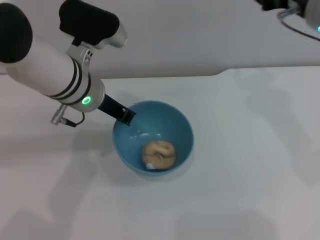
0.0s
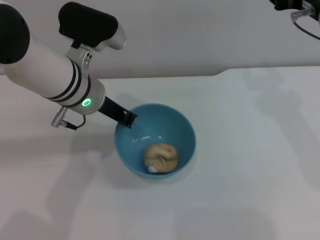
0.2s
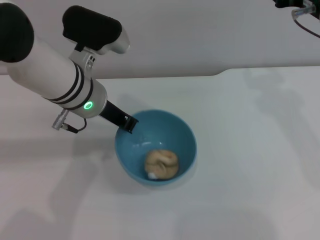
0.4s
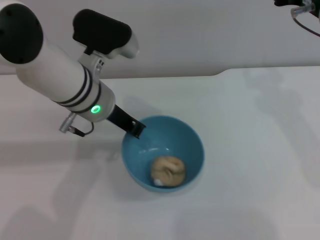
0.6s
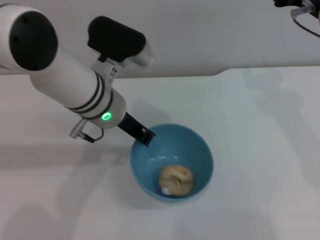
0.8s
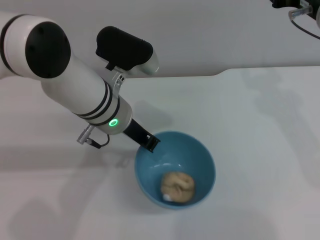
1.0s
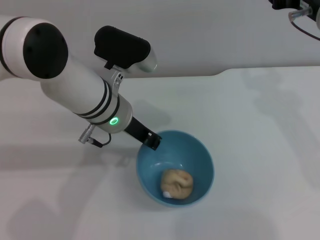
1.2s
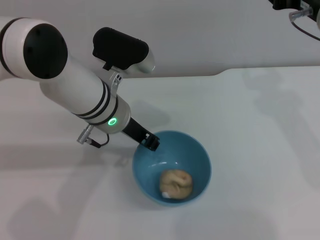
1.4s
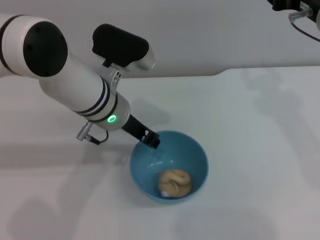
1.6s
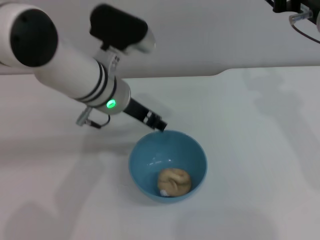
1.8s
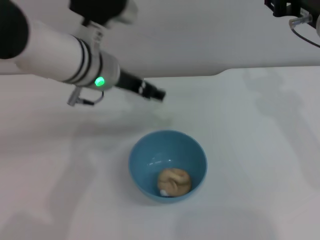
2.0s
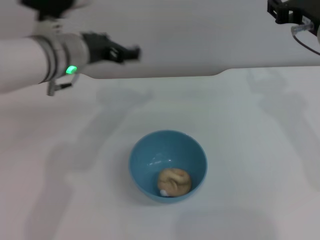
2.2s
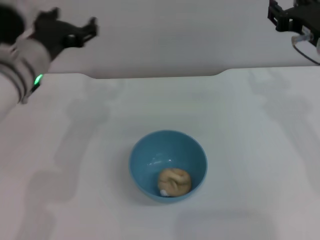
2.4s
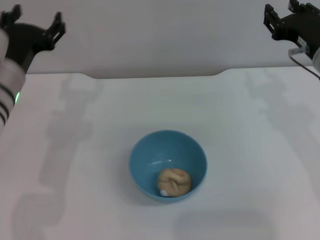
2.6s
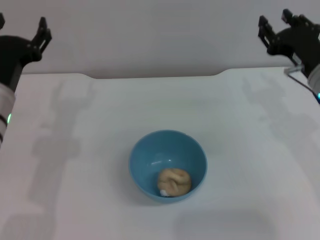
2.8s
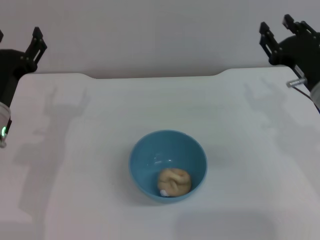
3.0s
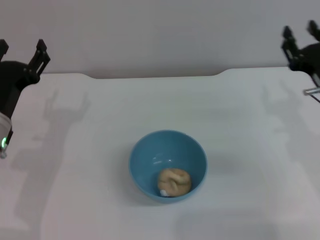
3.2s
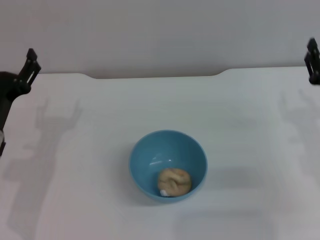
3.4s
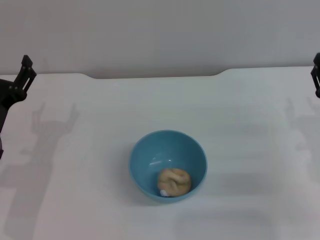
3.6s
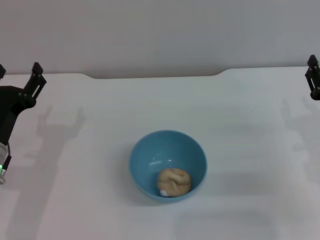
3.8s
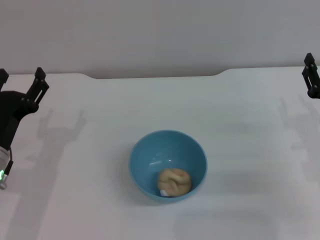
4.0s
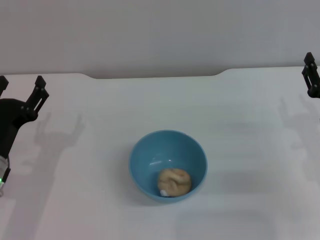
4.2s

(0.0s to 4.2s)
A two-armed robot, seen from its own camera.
Task of the whole recording: put the egg yolk pastry into the blue bowl and pour it out repeatedly.
Step, 0.0s - 2.2s: Place the bowl on the table.
1.4s - 2.8s: The right gripper heads downward, covering approximately 10 cm. The left gripper travels to the left by approximately 15 cm, and opens.
2.8s - 4.2s: The left gripper is displaced backward and downward by roughly 10 cm; the right gripper heads downward, backward and to the right, covering about 10 cm.

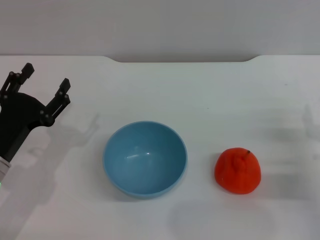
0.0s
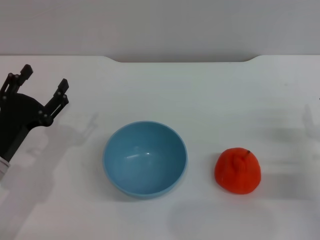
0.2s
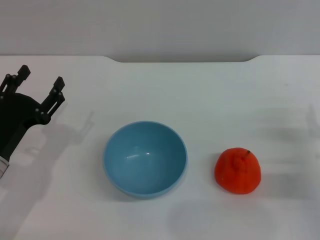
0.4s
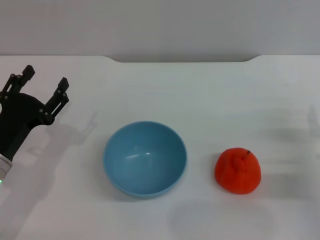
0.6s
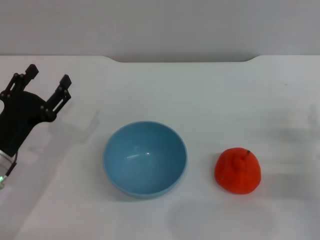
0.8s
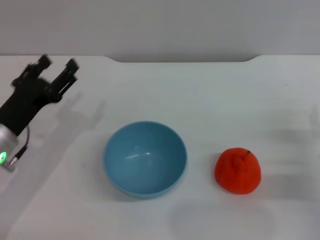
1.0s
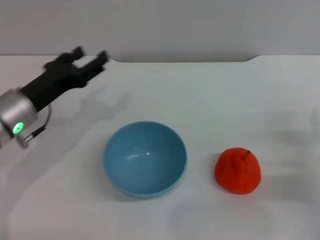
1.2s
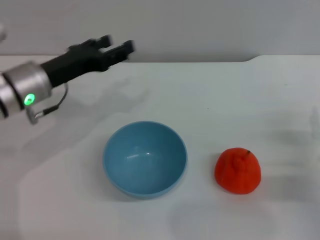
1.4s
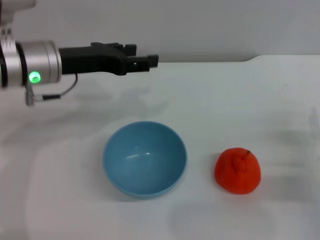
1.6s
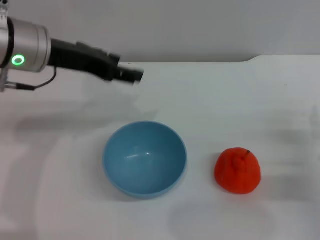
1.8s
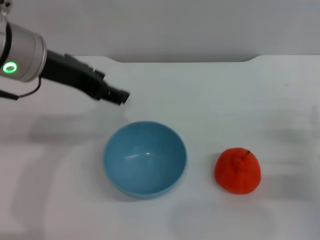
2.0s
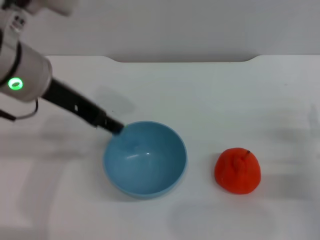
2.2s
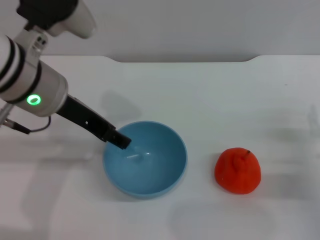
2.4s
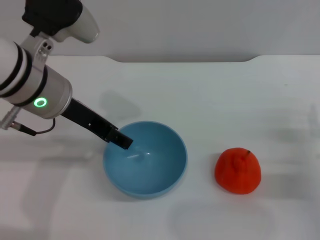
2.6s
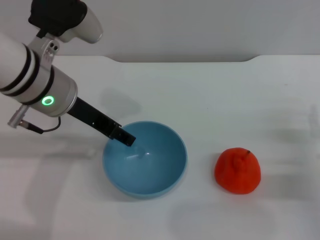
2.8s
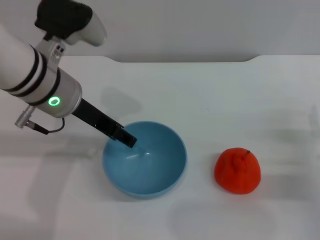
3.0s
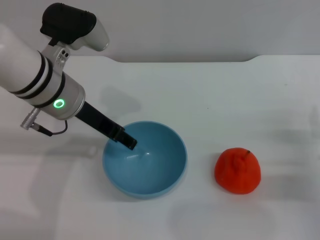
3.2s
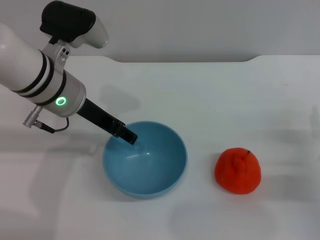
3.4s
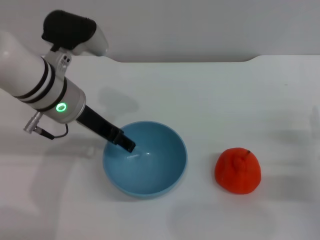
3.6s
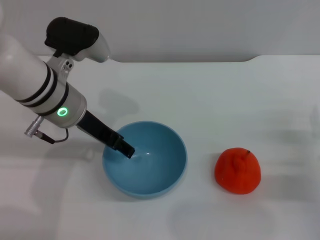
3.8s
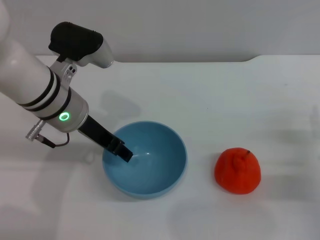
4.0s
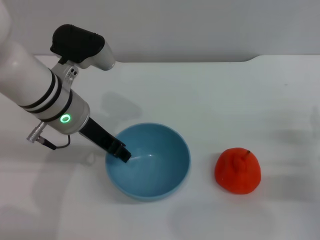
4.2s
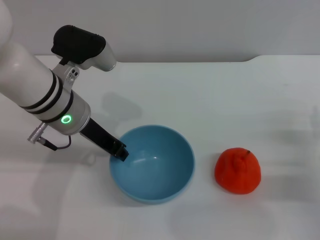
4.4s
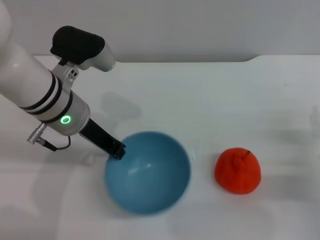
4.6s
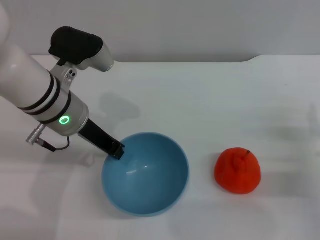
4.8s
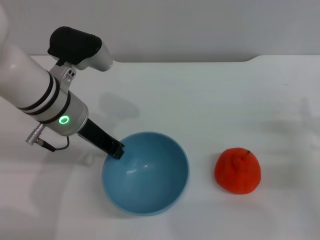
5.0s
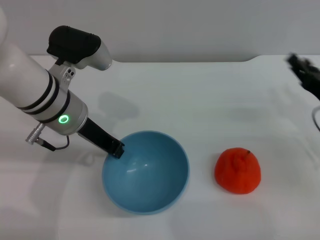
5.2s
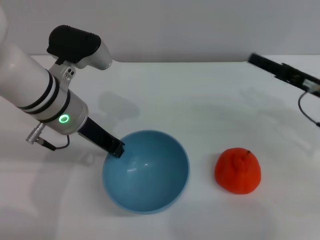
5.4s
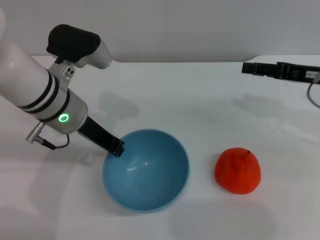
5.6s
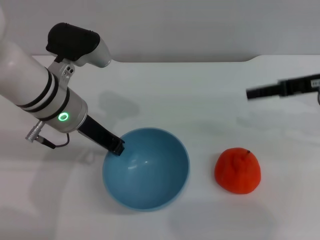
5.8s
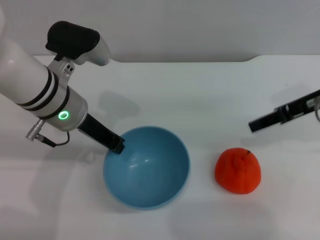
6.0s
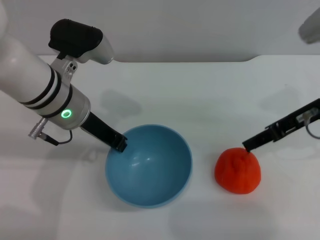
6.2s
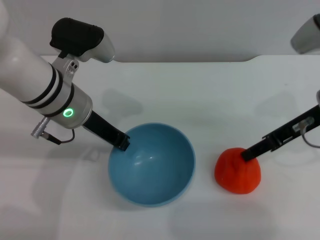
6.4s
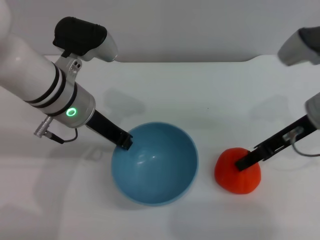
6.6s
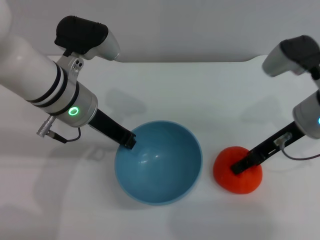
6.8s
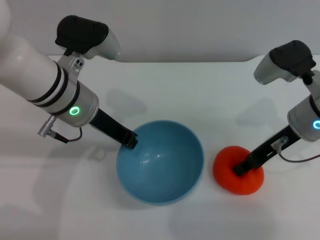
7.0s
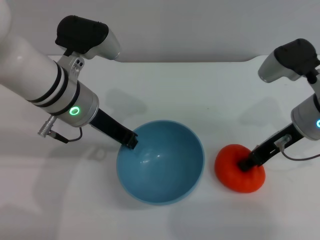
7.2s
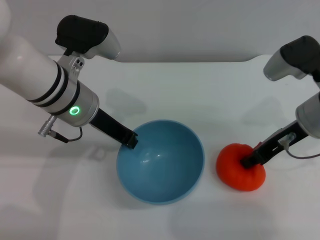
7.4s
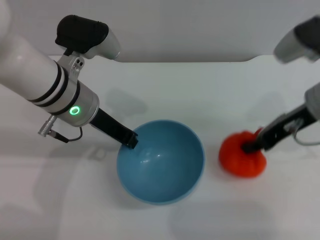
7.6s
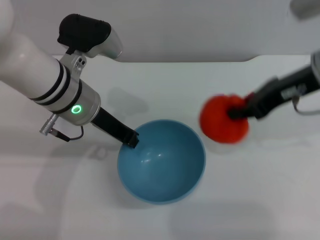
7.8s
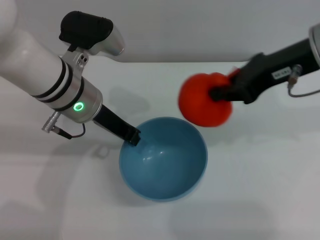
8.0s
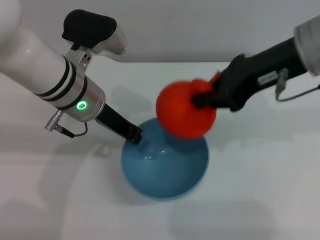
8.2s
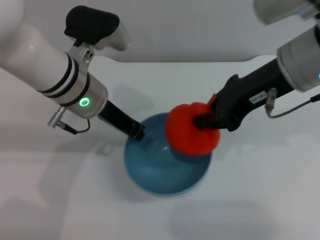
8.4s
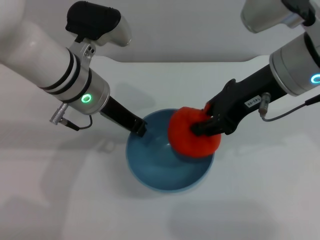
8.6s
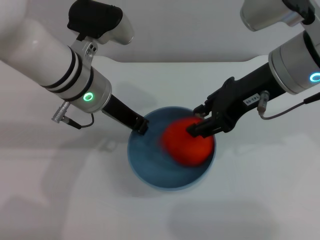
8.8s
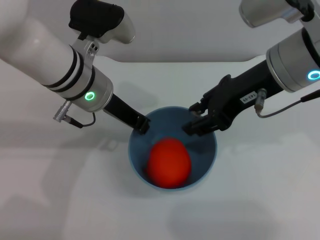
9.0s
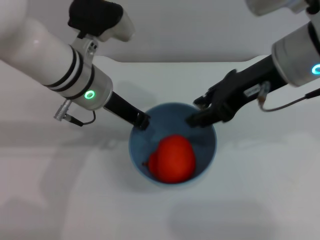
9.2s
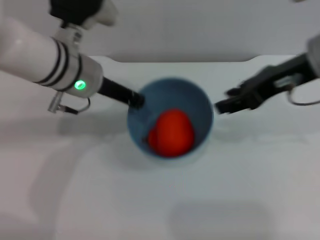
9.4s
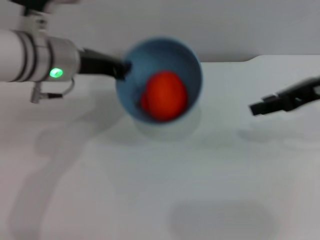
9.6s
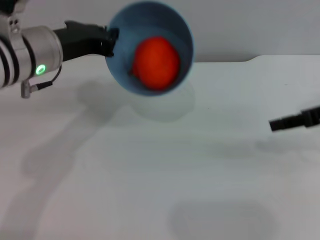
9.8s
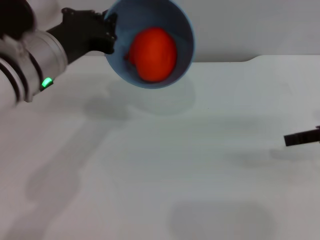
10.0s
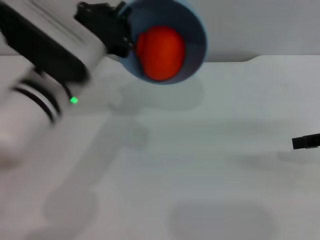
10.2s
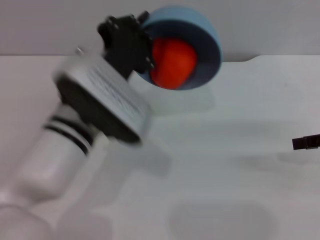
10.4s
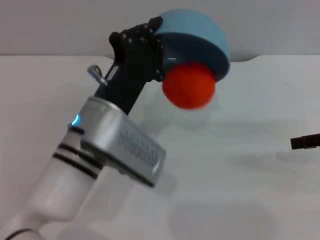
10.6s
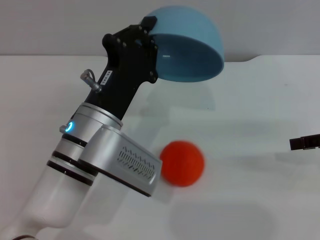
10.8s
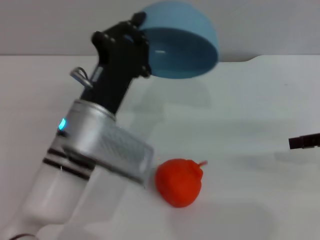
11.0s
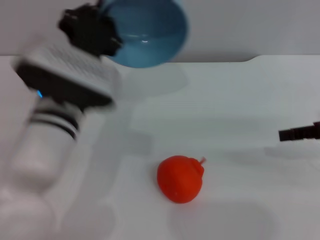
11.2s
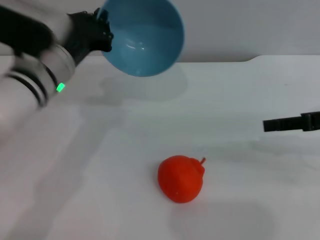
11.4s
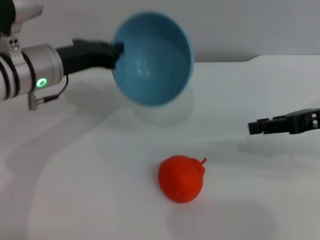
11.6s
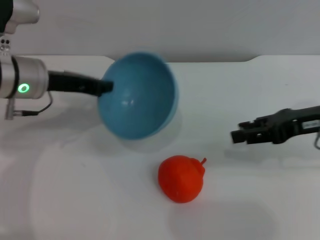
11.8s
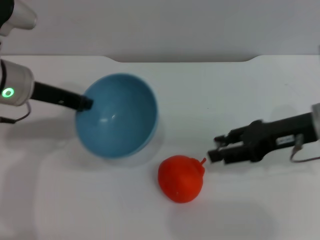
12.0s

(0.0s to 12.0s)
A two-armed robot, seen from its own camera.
Task of the whole recording: put the orange into the blue bowl and pour it out repeatedly.
Step, 0.0s - 6.4s: Pick up the bowl with the left gripper.
Step, 6.6s - 7.6s: Pick up the orange with the right gripper.
Step, 7.8s - 9.2s: Place the orange into the bowl.
Step, 9.4s - 10.8s: Pour the orange out of the bowl.
0.0s - 1.6s: The left gripper heads forward, upward and to the right, covering some 20 cm.
3.0s - 4.4s: The left gripper closes its fingers.
4.4s - 6.0s: The right gripper heads upward and forward, covering about 20 cm, while the left gripper closes up.
6.0s - 7.6s: The right gripper closes.
7.6s - 9.0s: The right gripper moves upward and to the left, some 10 cm, and opens its fingers.
9.0s - 10.4s: The right gripper travels to the right and downward by roughly 20 cm. Meanwhile the left gripper travels backward by about 10 cm.
10.4s - 12.0s: The right gripper goes roughly 10 cm to the left. Meanwhile the left gripper moves to the left and forward, about 15 cm.

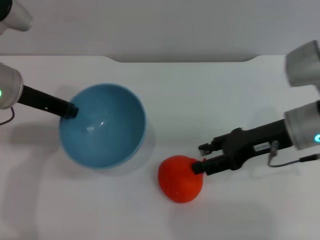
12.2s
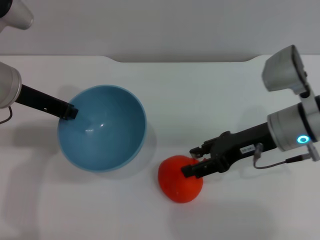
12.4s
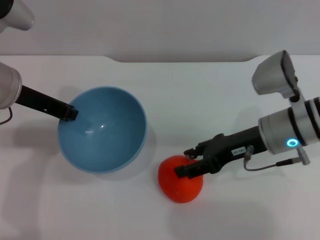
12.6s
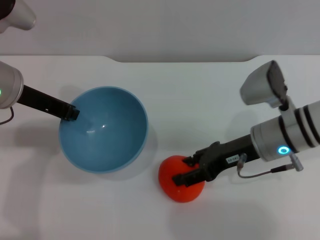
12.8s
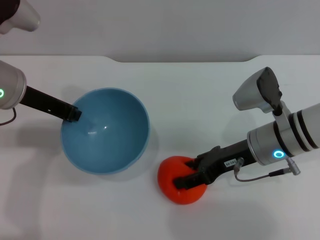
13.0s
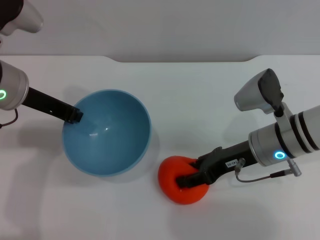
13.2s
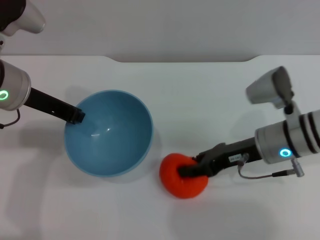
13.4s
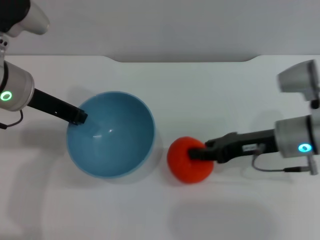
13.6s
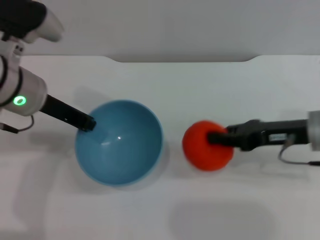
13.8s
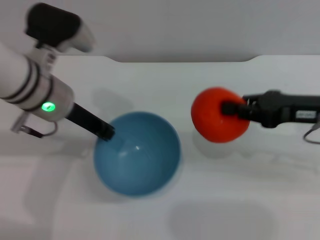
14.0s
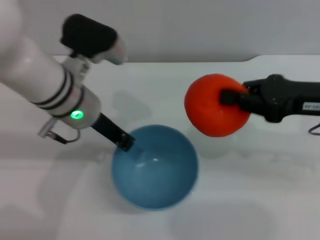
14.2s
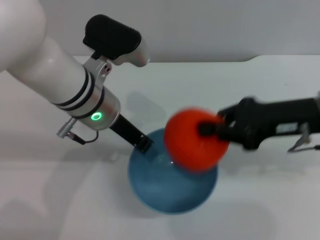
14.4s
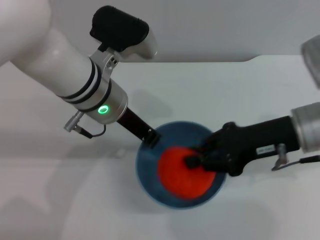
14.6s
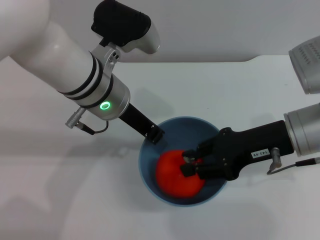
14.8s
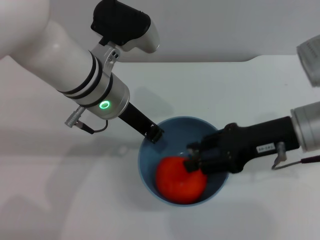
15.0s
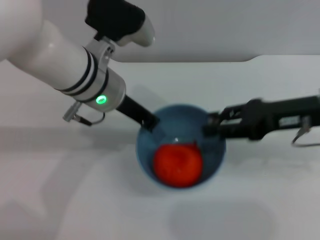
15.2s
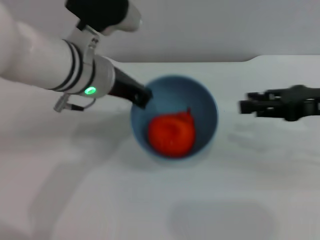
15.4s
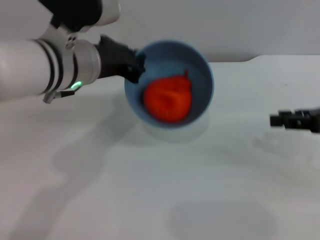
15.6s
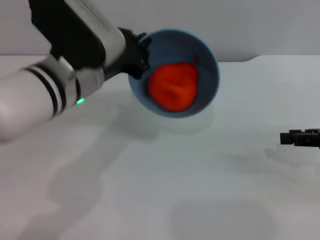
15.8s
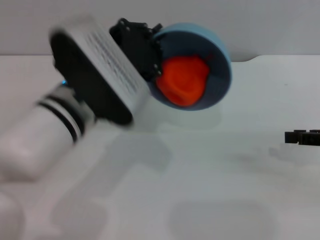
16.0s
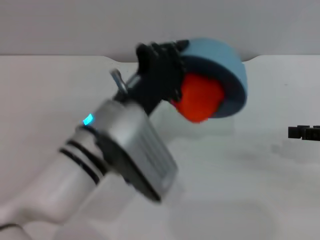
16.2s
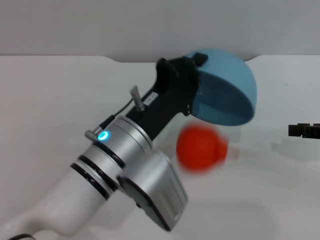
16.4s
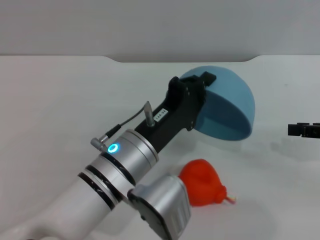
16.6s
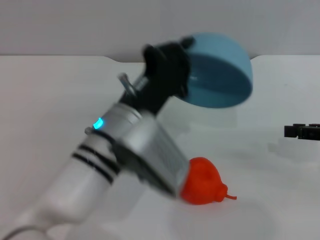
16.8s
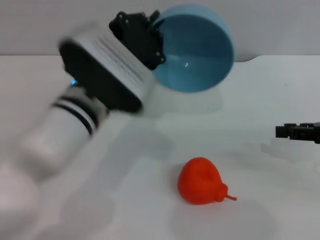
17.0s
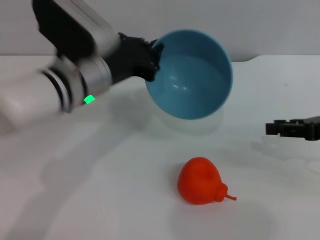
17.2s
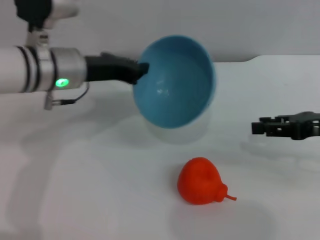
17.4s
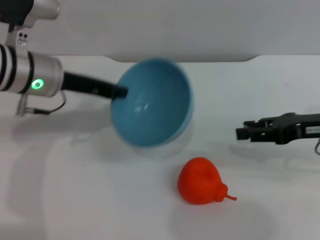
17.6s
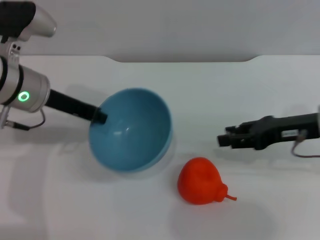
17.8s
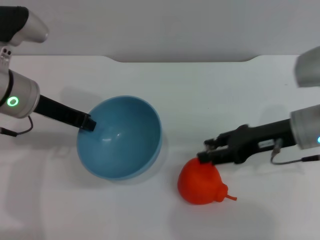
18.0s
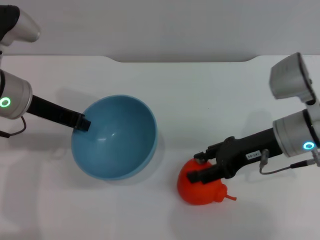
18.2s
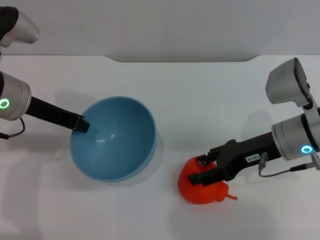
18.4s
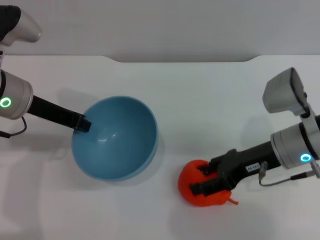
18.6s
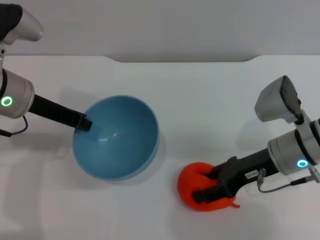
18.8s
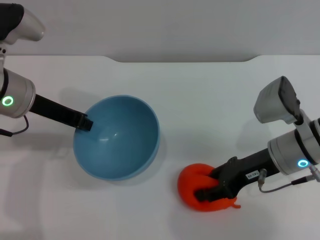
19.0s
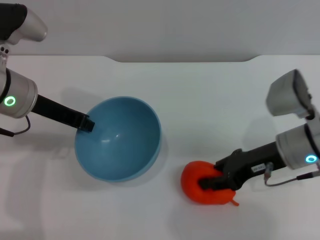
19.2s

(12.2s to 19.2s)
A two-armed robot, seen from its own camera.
Task of the whole recording: put the orange into the blue bowl and pour it out repeatedly.
Step, 12.2s - 13.8s: Pick up the orange with the right gripper.
Step, 14.0s - 15.2s: Place the orange into the bowl.
Step, 15.4s - 16.6s: Pour the orange out of the bowl.
12.2s - 13.6s: The right gripper closes up.
13.6s - 15.0s: The left gripper shifts some 10 cm to the right, while the right gripper is displaced upward by approximately 5 cm, and closes, then opens again.
15.0s - 16.4s: The left gripper travels backward and downward by roughly 10 cm; the right gripper heads to the right, covering approximately 15 cm.
16.4s - 17.8s: The left gripper heads to the left and forward, covering roughly 20 cm, while the right gripper shifts some 10 cm to the left.
17.8s - 19.2s: The right gripper travels to the left by about 5 cm.
